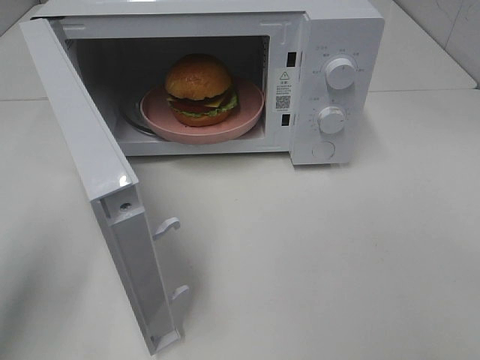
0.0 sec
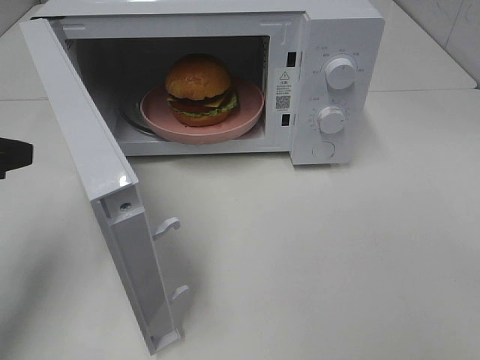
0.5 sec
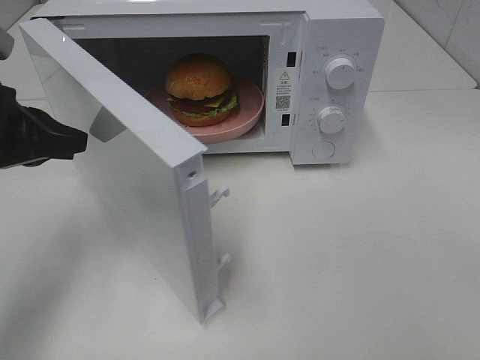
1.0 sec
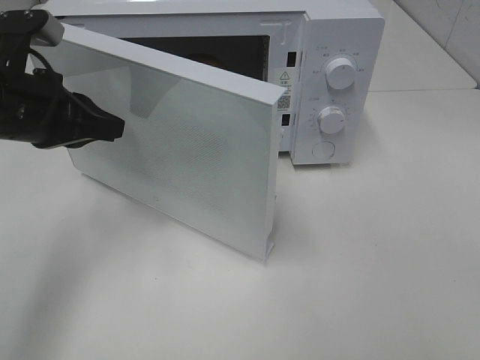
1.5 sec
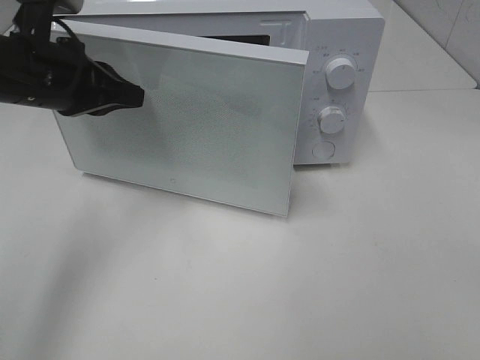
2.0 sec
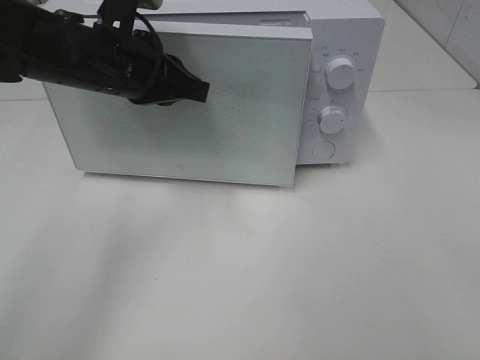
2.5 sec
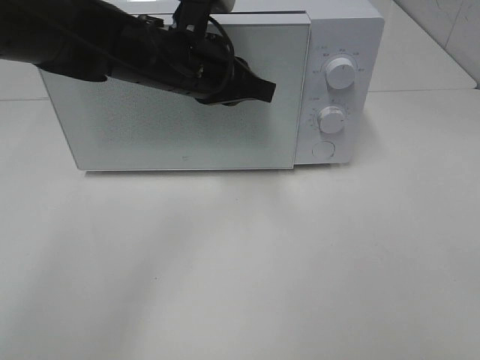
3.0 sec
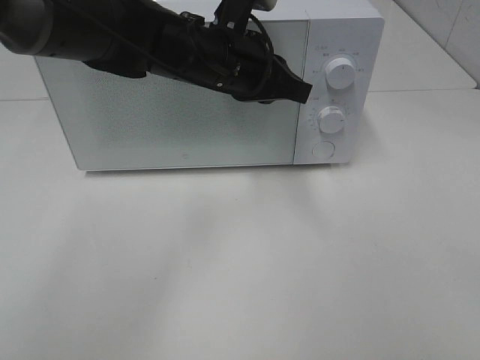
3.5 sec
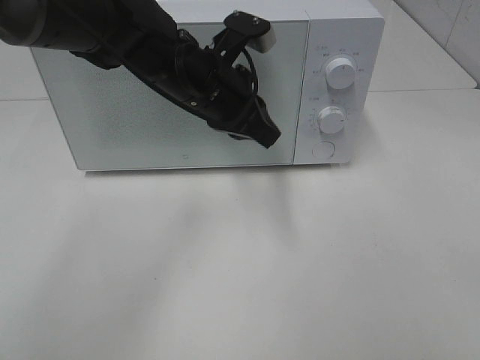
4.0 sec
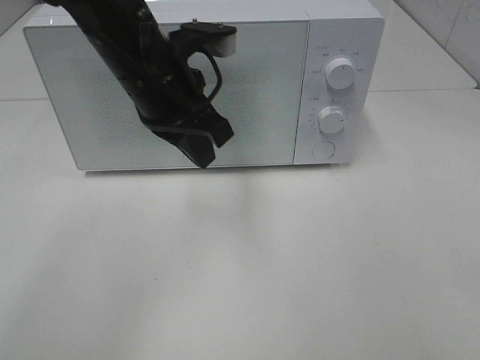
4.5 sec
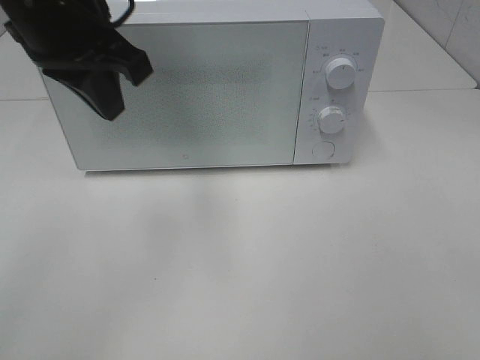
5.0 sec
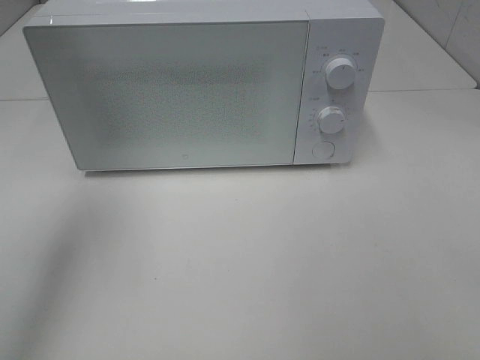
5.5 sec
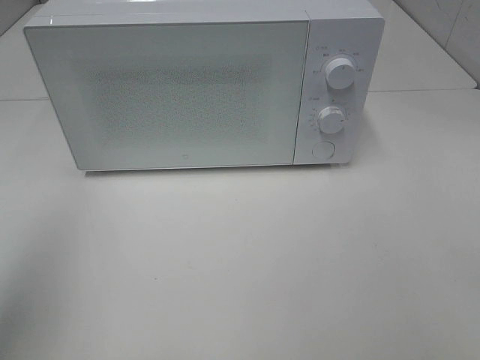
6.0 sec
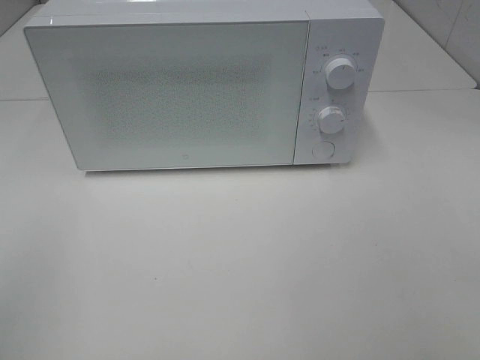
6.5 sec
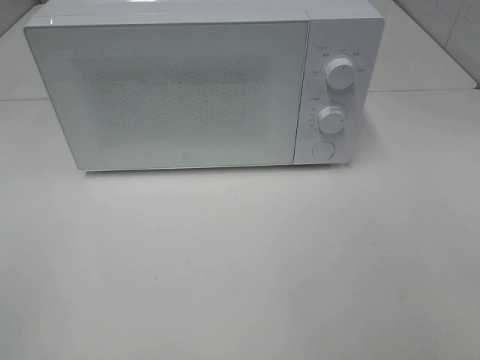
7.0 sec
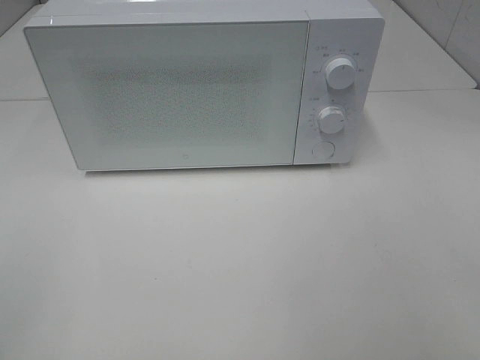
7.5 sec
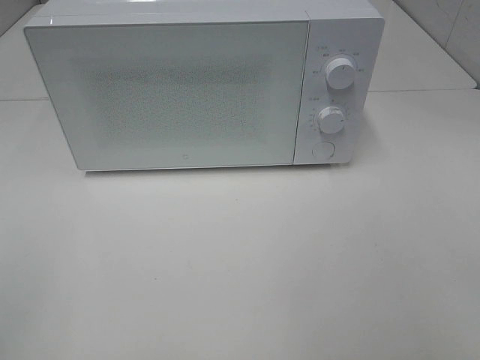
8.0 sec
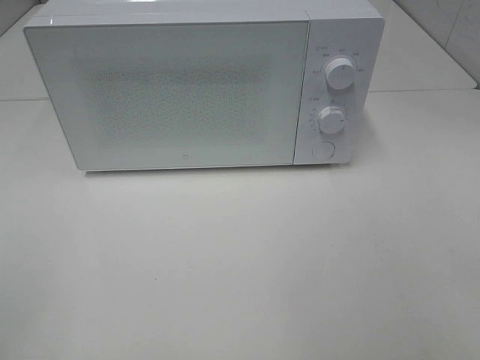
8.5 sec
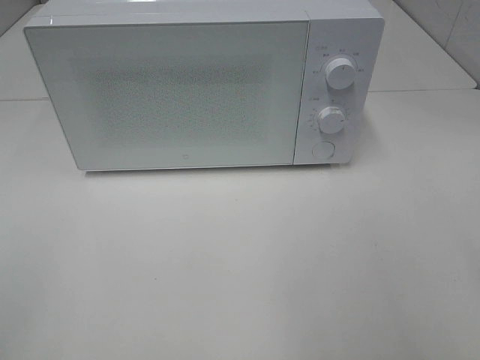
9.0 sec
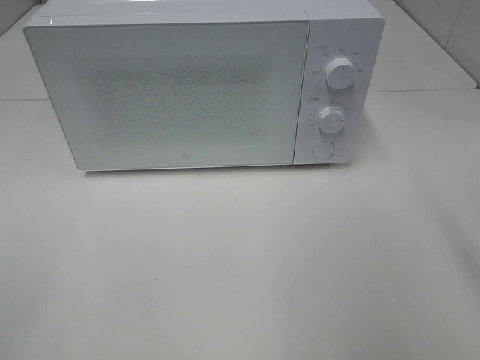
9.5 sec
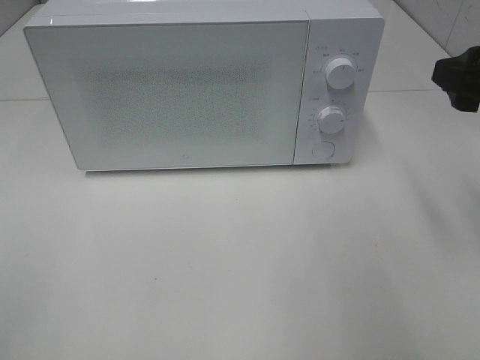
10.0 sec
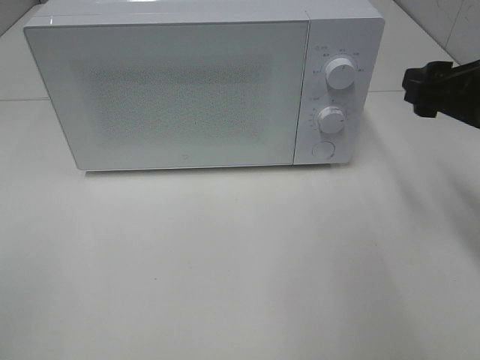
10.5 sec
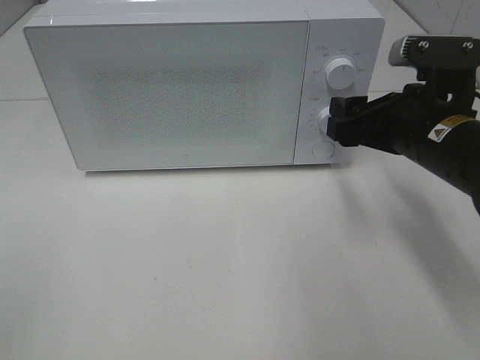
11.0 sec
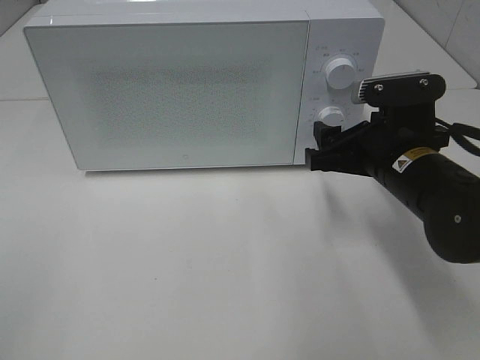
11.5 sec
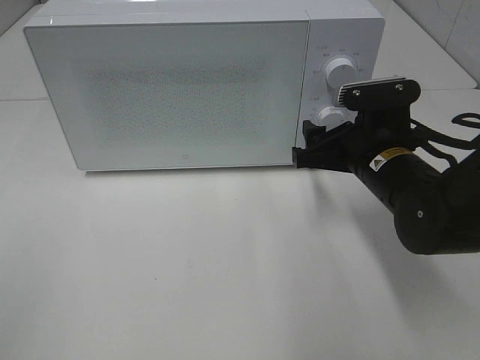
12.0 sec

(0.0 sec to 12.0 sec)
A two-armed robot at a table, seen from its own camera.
Task of the whole recording: Heat the burger.
Step, 0.0 sec - 3.0 sec: Left hand: close the microwave door.
0.0 sec - 2.0 sec: The left gripper goes about 20 cm forward and to the right.
2.0 sec - 4.0 sec: The left gripper shifts approximately 15 cm to the right.
4.0 sec - 6.0 sec: The left gripper travels to the left, backward and upward by approximately 40 cm.
6.0 sec - 8.0 sec: The left gripper goes about 15 cm backward and downward.
8.0 sec - 10.0 sec: The right gripper moves forward, some 25 cm.
10.0 sec - 12.0 sec: The right gripper goes some 20 cm downward, to the left and forward.

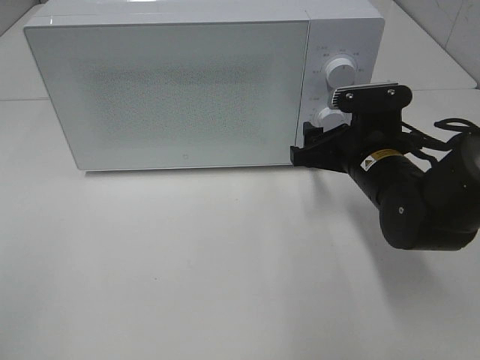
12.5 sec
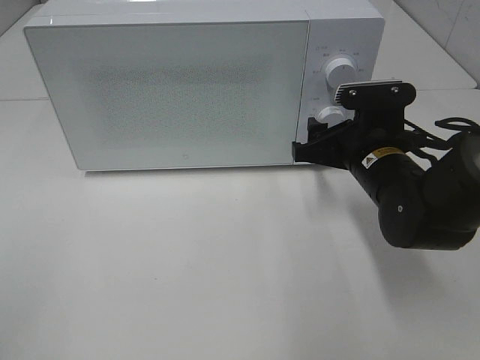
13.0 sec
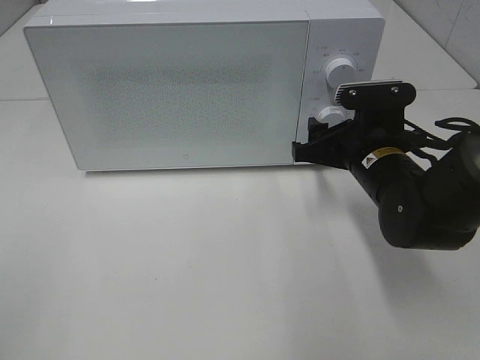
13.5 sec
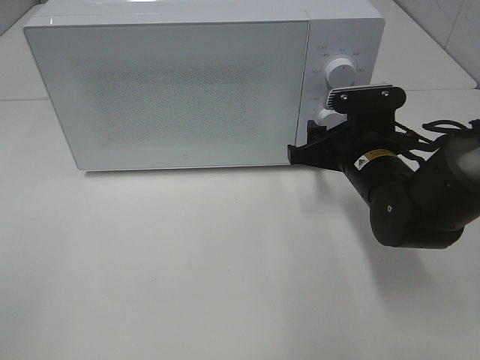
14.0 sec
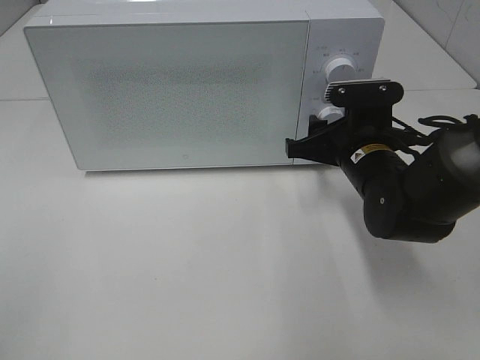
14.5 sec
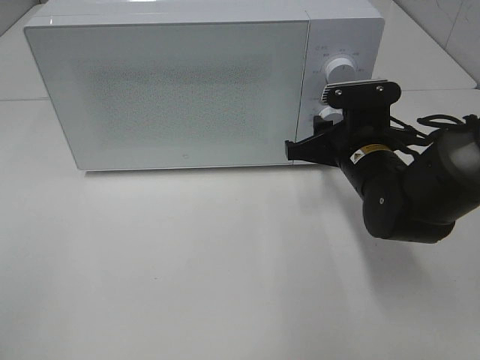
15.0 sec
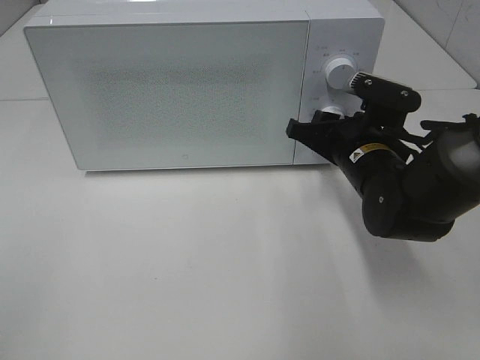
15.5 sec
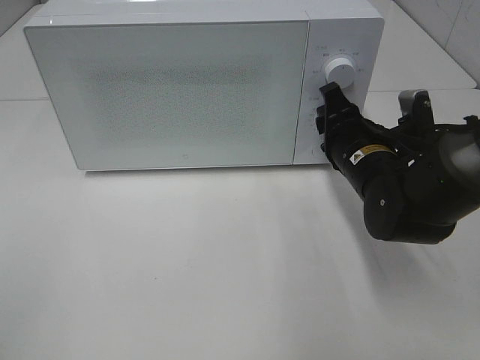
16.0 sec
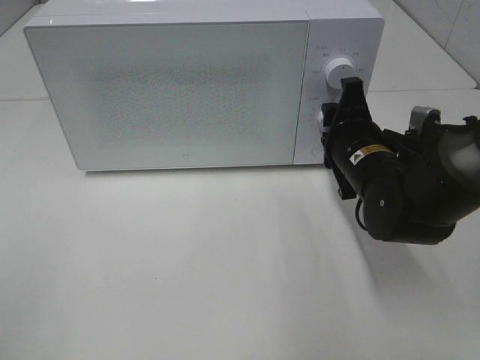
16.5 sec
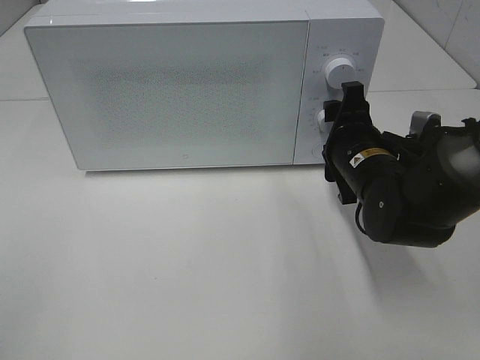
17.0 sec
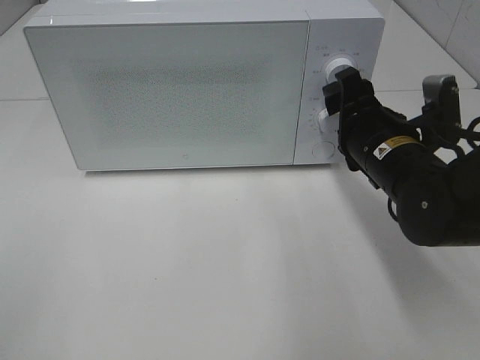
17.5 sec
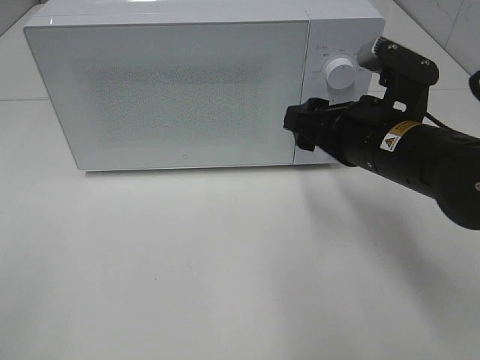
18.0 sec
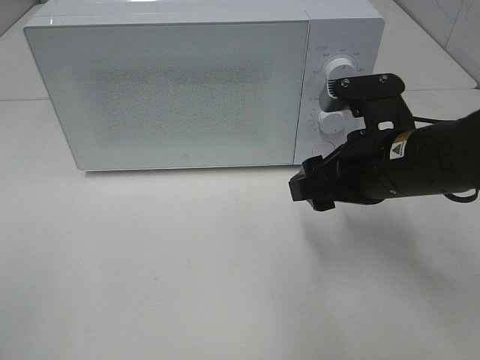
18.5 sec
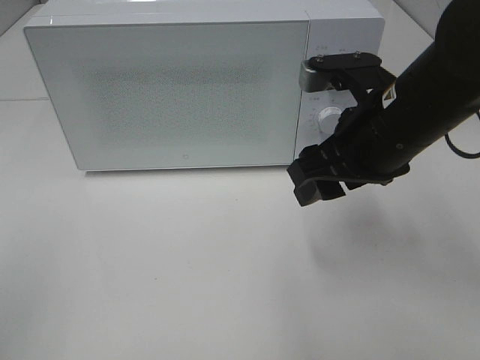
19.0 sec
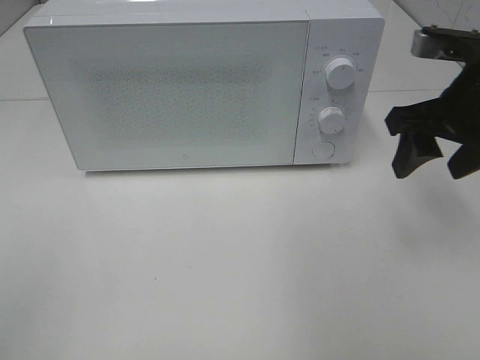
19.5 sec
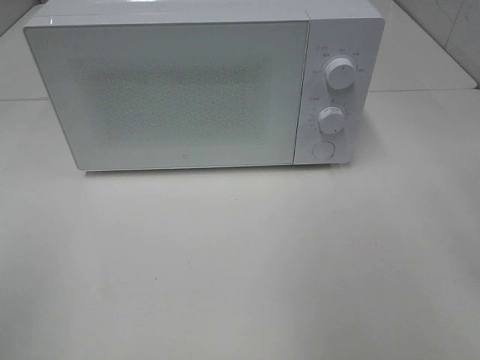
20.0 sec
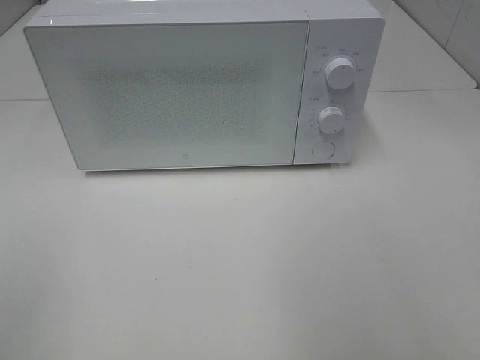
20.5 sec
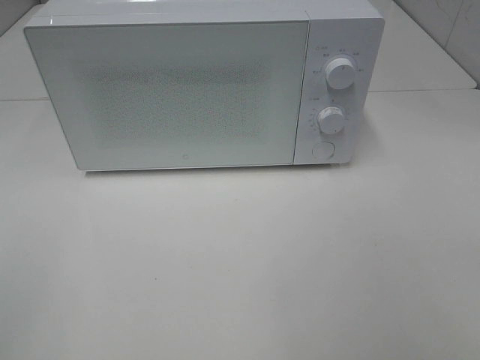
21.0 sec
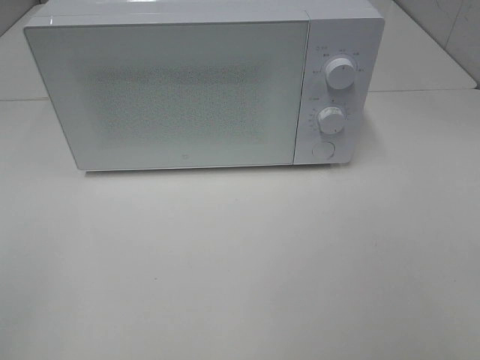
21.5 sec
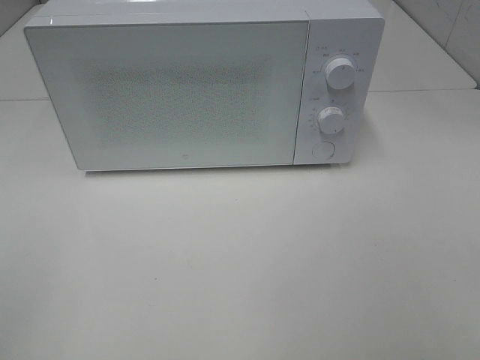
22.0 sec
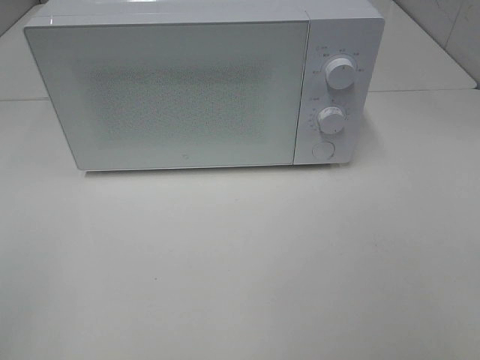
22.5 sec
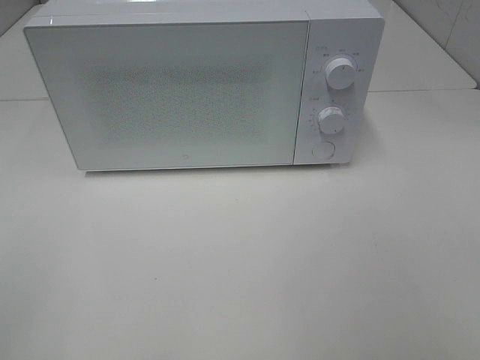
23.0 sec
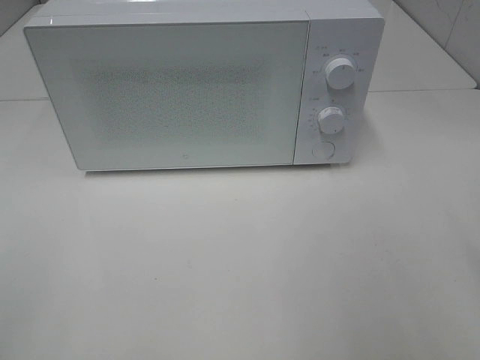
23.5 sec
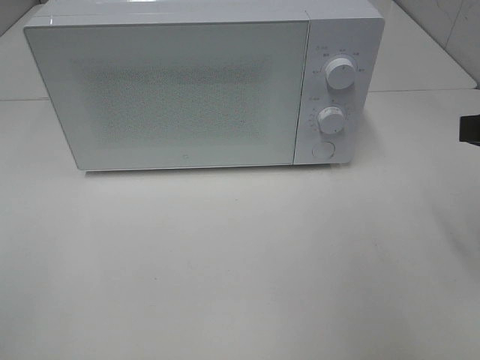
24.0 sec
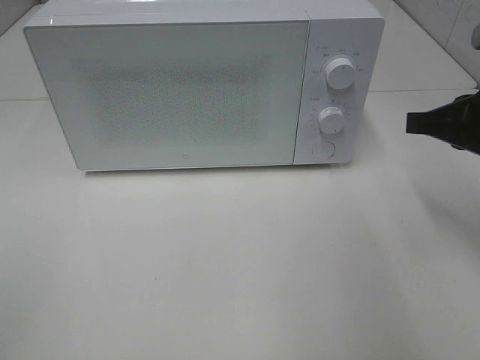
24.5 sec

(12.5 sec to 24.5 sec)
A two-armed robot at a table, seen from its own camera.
Task of the whole recording: Heat the burger.
Step, 12.5 sec - 17.0 sec: Right hand: twist timer button.
12.5 sec - 14.5 sec: There are only small adjustments of the grippers.
16.5 sec - 18.5 sec: The right gripper goes about 10 cm backward and upward.
18.5 sec - 20.5 sec: The right gripper moves upward, backward and to the right, roughly 25 cm.
22.5 sec - 24.5 sec: The right gripper travels forward by approximately 25 cm, and closes.

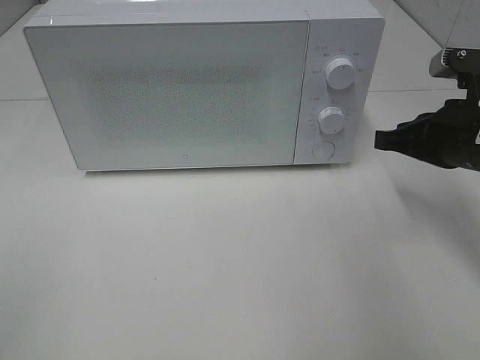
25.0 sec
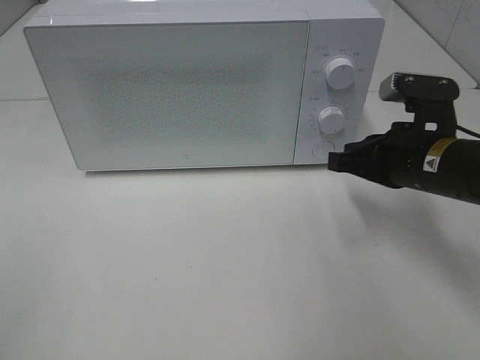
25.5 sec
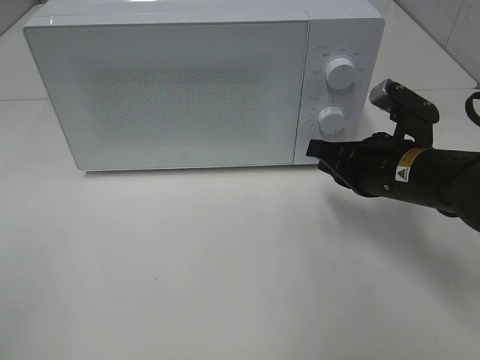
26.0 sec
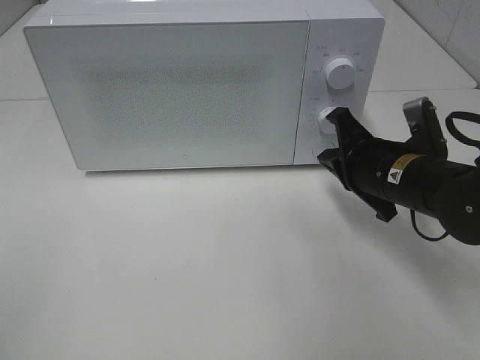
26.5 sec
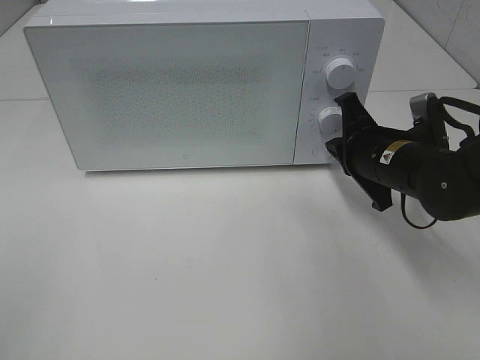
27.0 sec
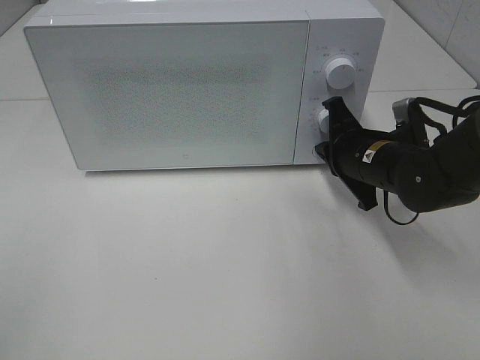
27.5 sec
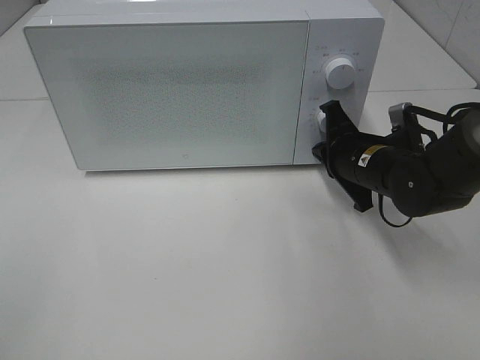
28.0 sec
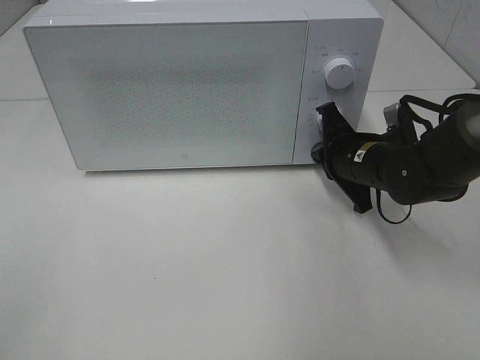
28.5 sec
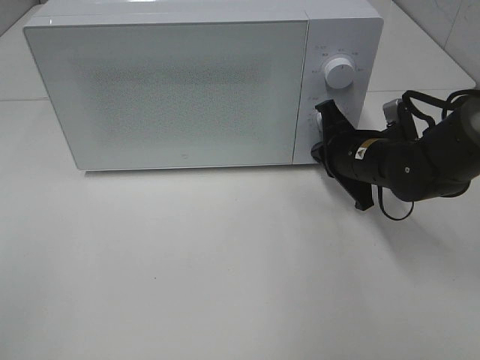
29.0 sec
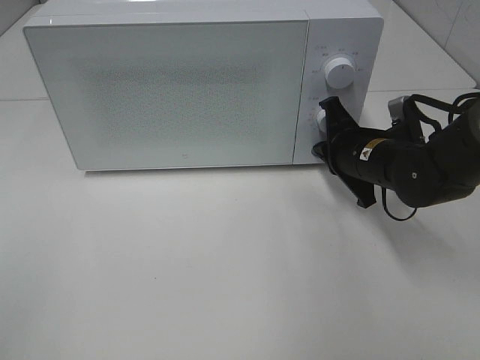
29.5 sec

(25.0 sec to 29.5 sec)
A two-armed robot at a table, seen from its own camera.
Task of the whole recording: Heat the burger.
25.0 sec - 27.0 sec: The right gripper travels to the left and downward by approximately 10 cm.
27.0 sec - 29.5 sec: The grippers make only small movements.
